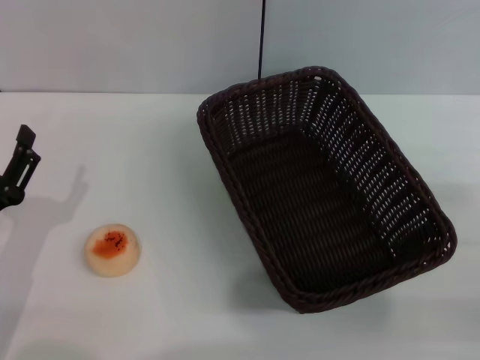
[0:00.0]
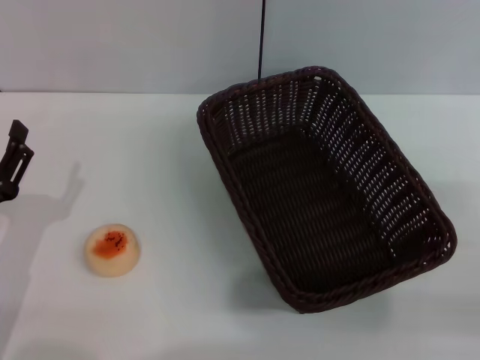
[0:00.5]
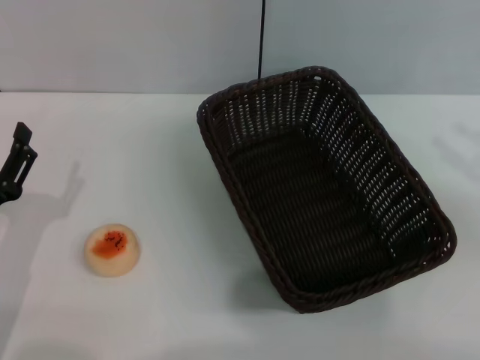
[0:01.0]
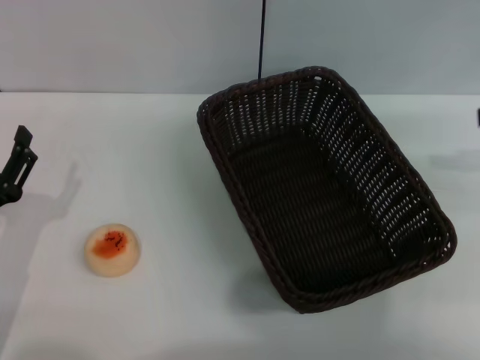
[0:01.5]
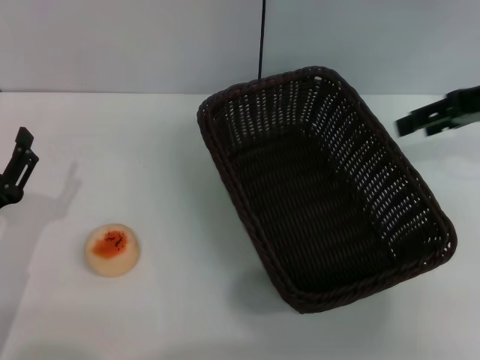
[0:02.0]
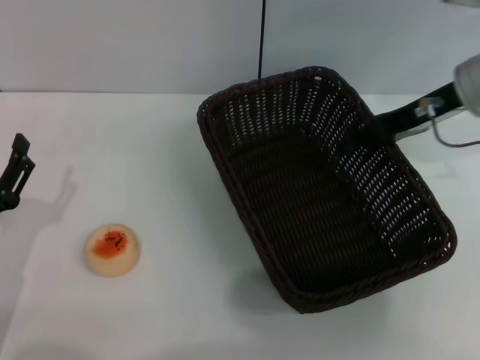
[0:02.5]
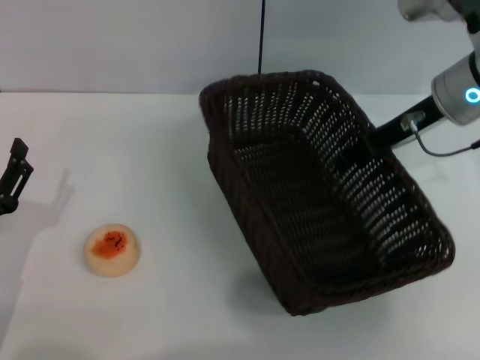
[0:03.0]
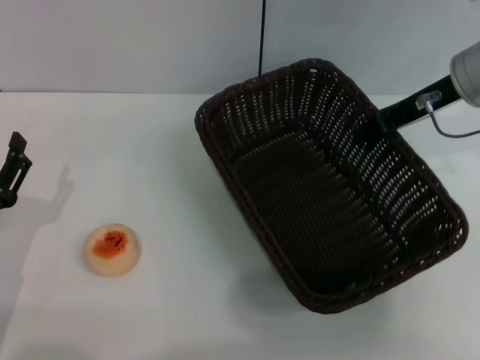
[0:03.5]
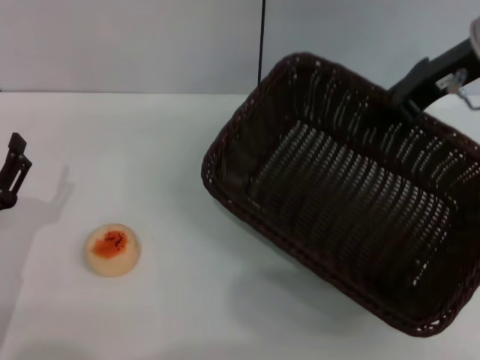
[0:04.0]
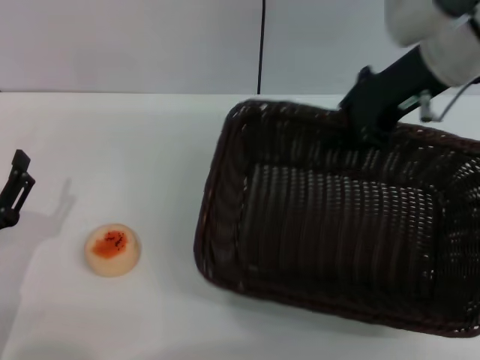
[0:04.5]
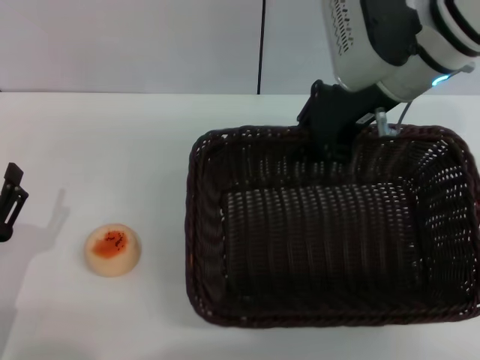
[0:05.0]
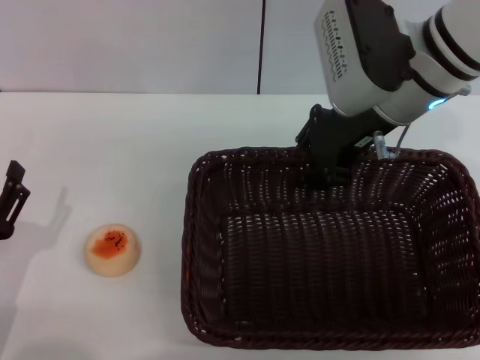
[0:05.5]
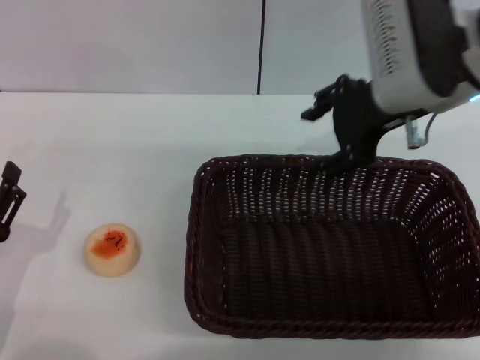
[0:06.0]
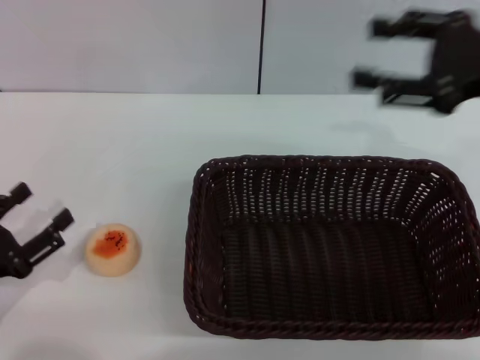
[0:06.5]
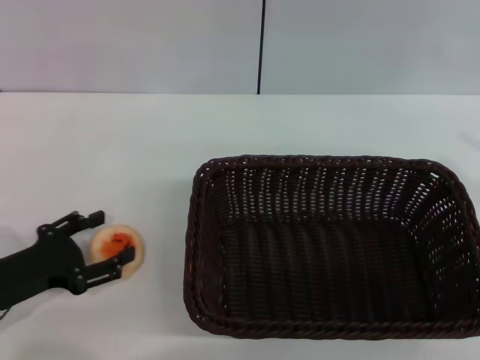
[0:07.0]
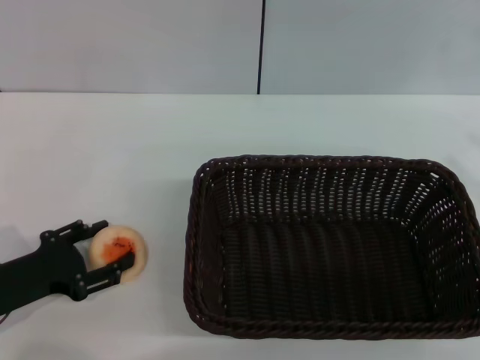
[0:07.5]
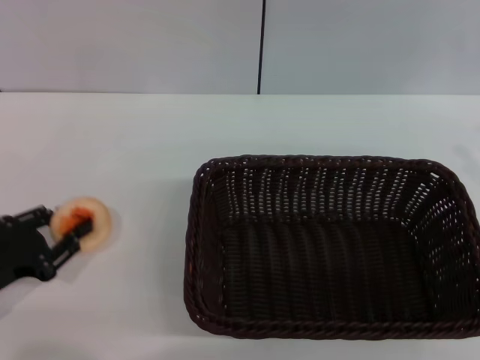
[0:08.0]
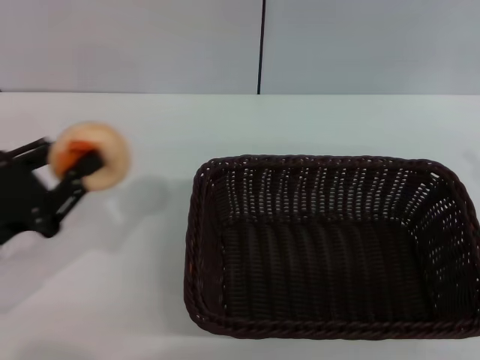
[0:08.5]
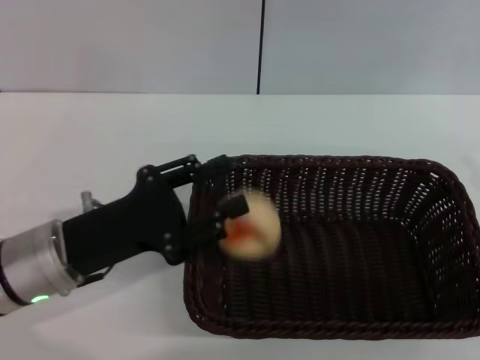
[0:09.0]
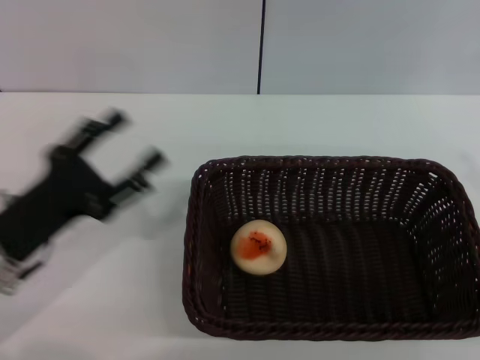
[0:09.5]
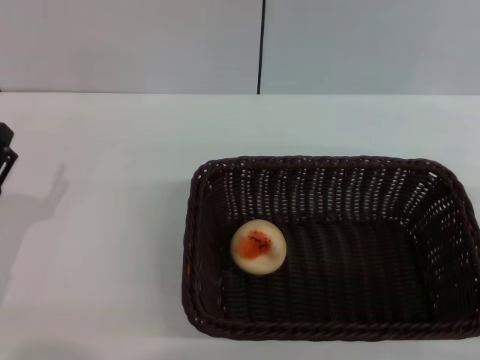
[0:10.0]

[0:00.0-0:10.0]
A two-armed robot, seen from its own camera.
Step, 0:00.0 to 0:06.0: Move the basket to the center of view with the right gripper.
Step, 0:06.5 to 0:08.0: Pick up the egg yolk pastry with the left gripper.
Step, 0:08.5 to 0:09.0: Place the egg yolk pastry into the basket with the left gripper.
0:00.0 to 0:02.0: The right gripper shifts about 20 cm forward and upward.
0:02.0 to 0:04.0: The right gripper moves to the left, about 10 cm, and closes up.
0:04.0 to 0:06.0: The right gripper is displaced to the left by roughly 5 cm, and opens up.
0:06.0 to 0:08.0: The left gripper moves approximately 5 cm, and closes its fingers. Meanwhile the right gripper travels to the right, backward and downward by about 25 cm.
0:08.0 to 0:10.0: The left gripper reaches about 10 cm to the right, then returns, and opens. The right gripper heads downward, covering some 5 cm.

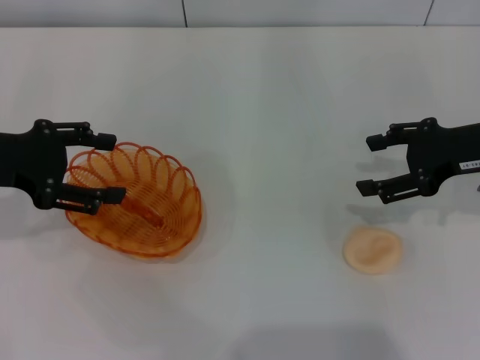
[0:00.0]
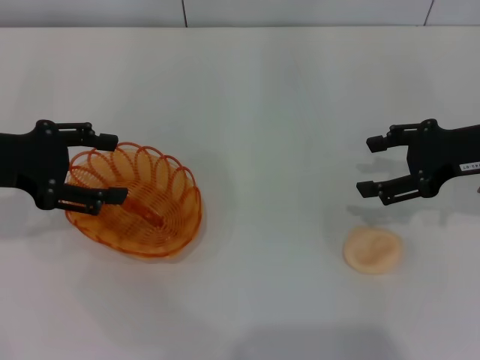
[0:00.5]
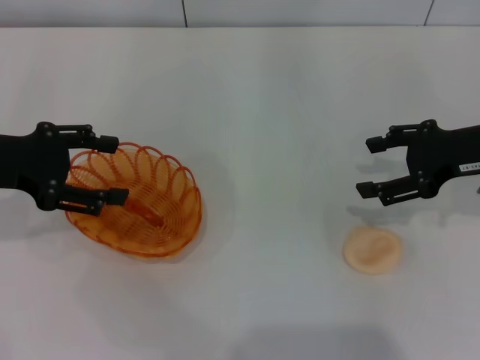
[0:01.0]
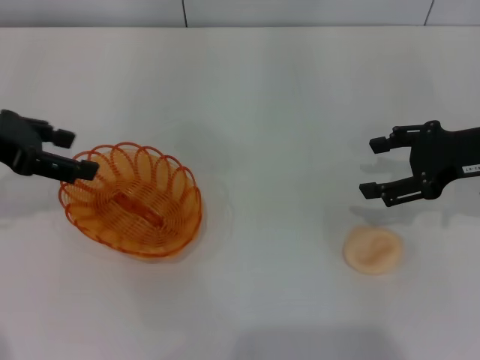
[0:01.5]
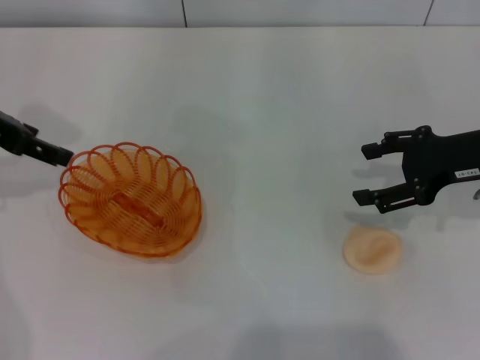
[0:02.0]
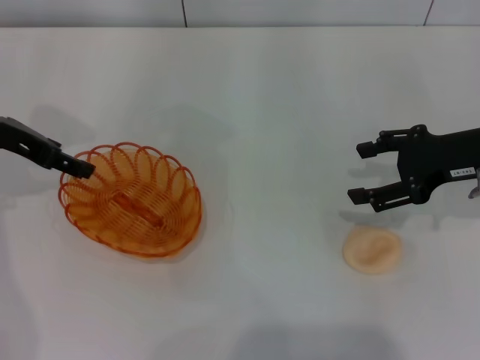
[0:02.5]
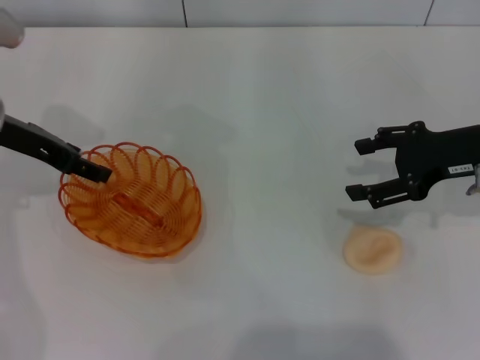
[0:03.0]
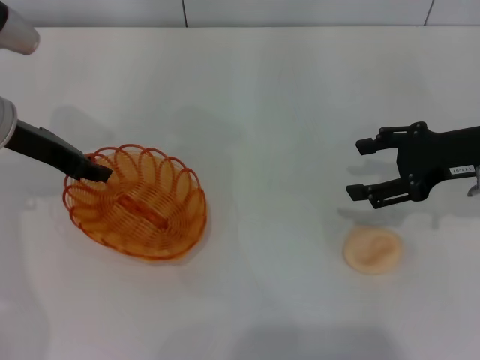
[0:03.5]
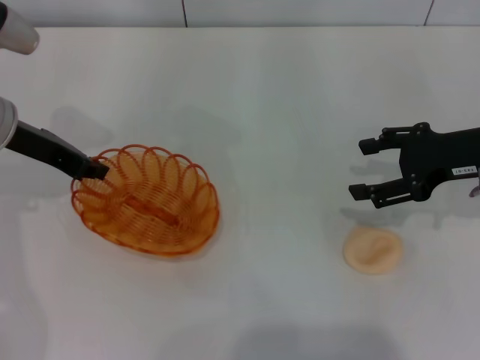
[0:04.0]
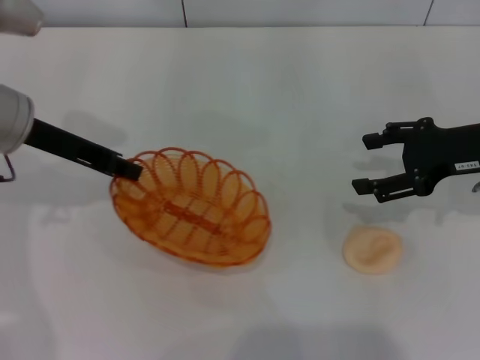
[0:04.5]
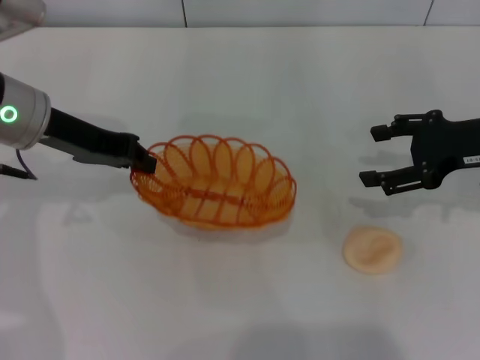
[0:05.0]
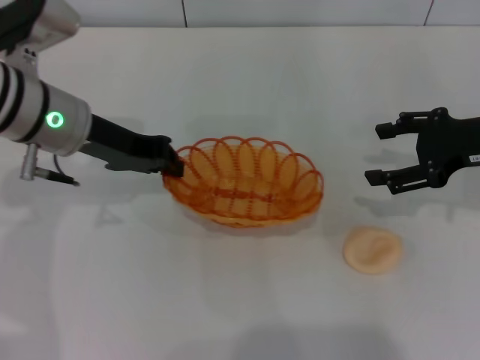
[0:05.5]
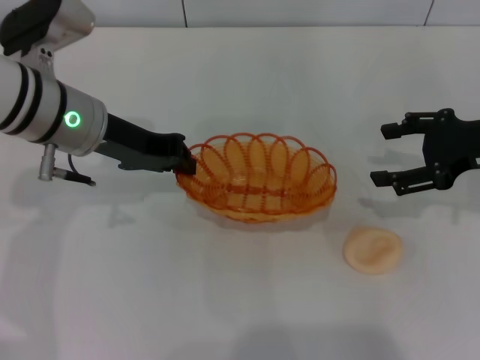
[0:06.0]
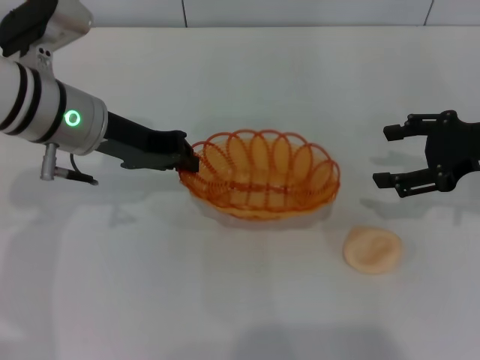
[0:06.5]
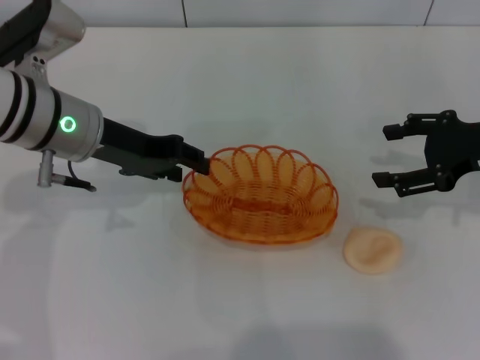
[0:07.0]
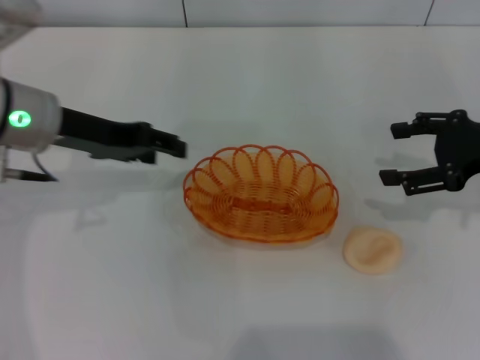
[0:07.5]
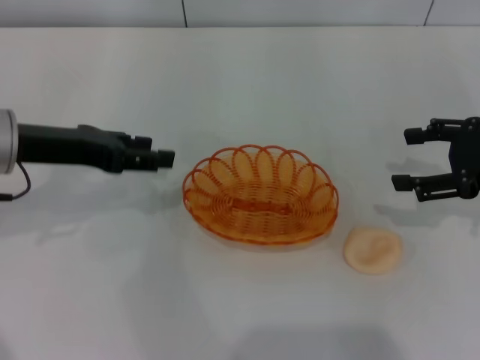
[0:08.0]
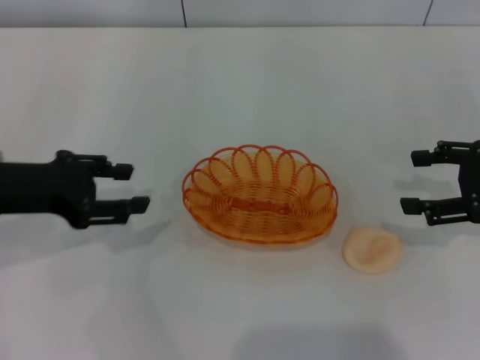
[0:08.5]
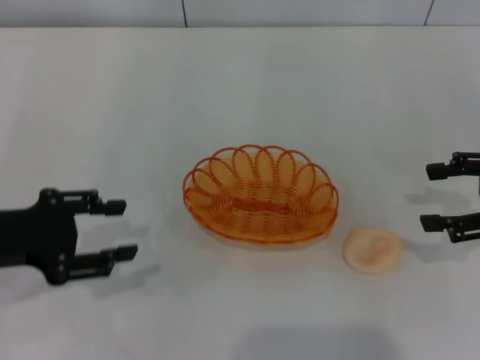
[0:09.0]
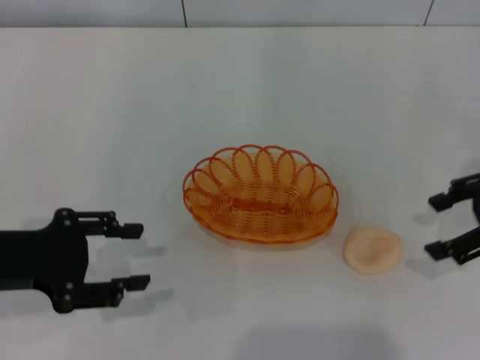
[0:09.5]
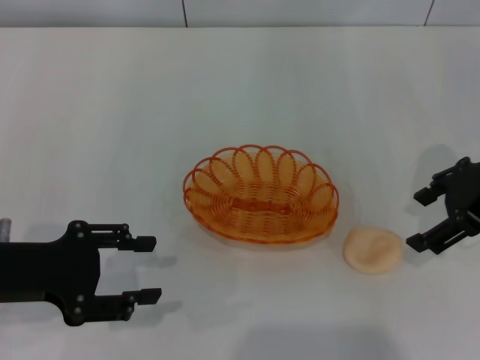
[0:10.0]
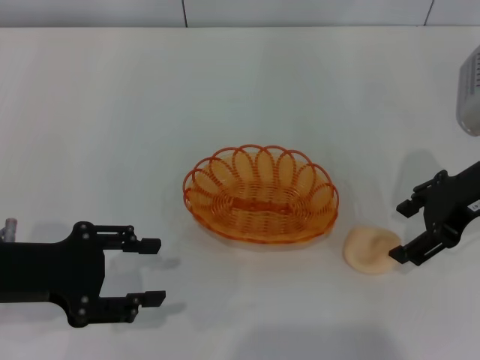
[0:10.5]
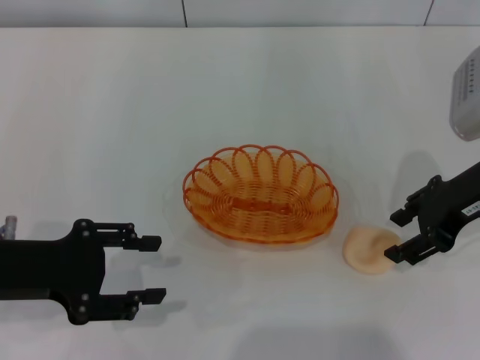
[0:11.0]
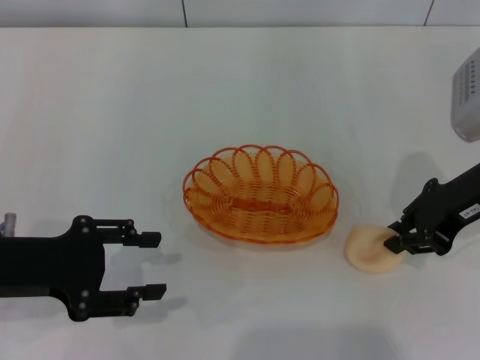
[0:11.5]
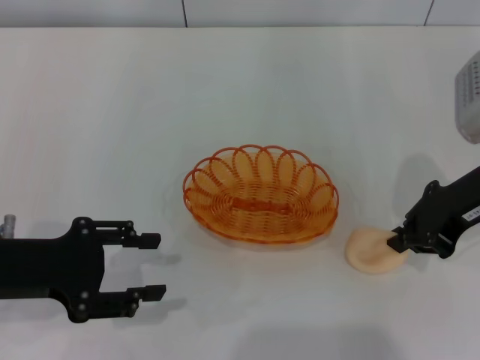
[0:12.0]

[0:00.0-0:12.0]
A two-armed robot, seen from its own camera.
Step, 0:00.0 to 0:05.0: Pick up the basket with the left gripper.
Step, 0:05.5 to 0:07.5: Place the basket in the center of view with the left gripper.
0:00.0 to 0:02.0: The left gripper moves roughly 5 cm.
0:02.0 to 0:04.0: The left gripper moves downward, approximately 5 cm, and closes.
0:04.0 to 0:06.0: The left gripper heads to the right, covering some 10 cm.
0:06.0 to 0:08.0: The left gripper shifts about 5 cm to the left, and opens.
0:08.0 to 0:10.0: The left gripper shifts some 10 cm backward; the right gripper is displaced to the left by roughly 5 cm.
0:10.0 to 0:12.0: The right gripper closes up.

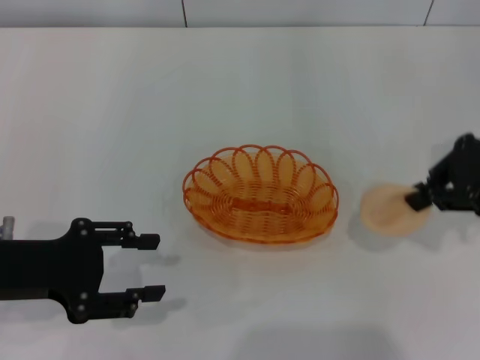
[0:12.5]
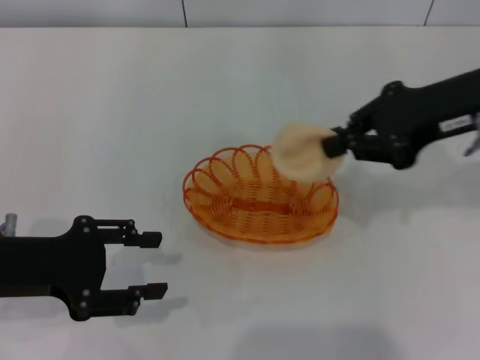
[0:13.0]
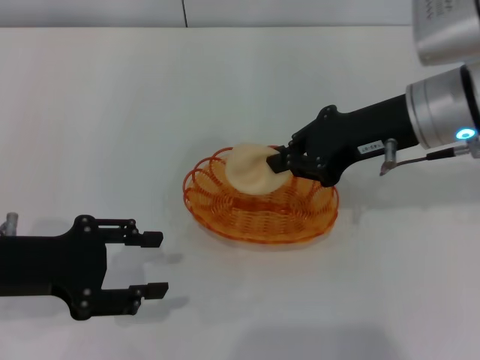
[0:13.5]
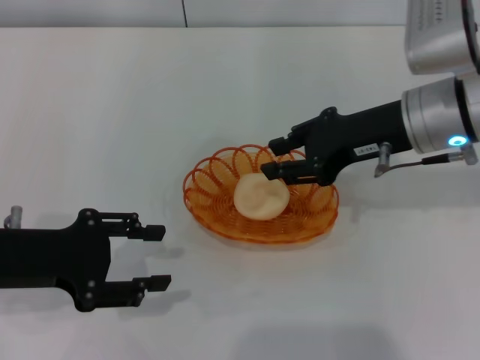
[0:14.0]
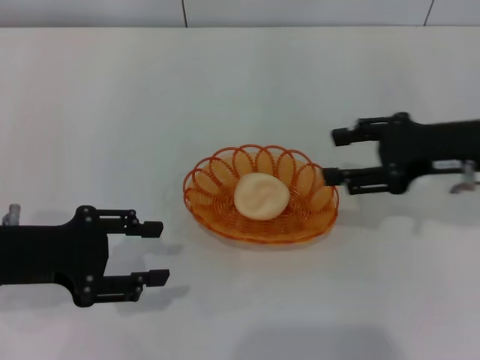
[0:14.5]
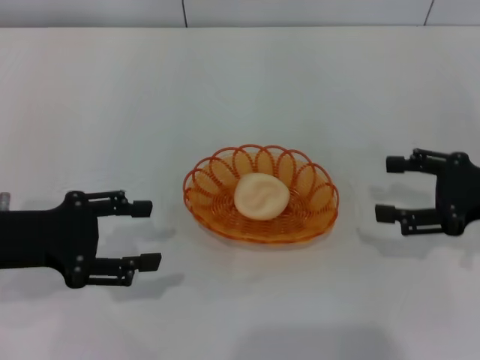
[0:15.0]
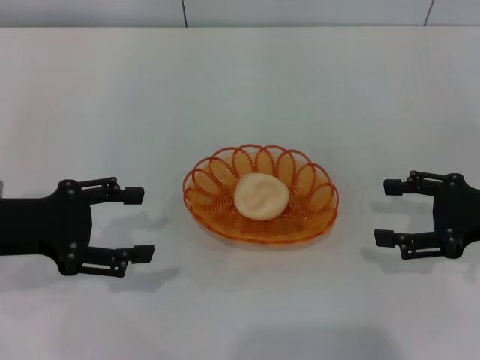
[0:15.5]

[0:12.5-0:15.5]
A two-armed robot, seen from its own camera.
Step, 0:13.0 to 0:14.0: Place the egg yolk pastry into the basket with the right gripper.
0:12.5 to 0:14.0: The right gripper is displaced to the left by approximately 10 cm.
0:14.0 to 0:15.5: The right gripper goes some 15 cm to the right, downward and backward, and opens up.
